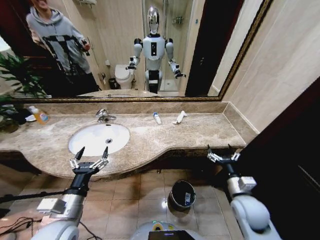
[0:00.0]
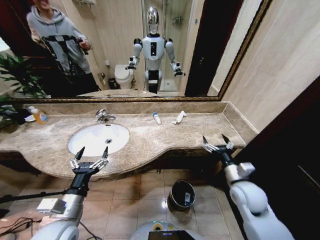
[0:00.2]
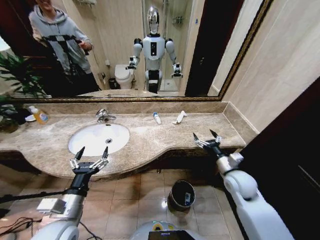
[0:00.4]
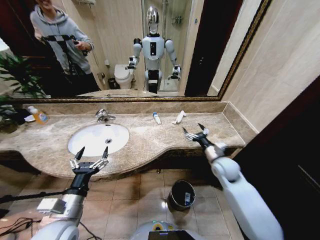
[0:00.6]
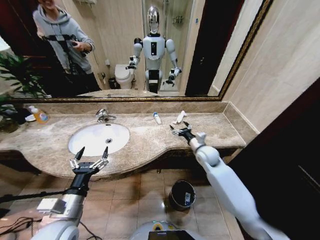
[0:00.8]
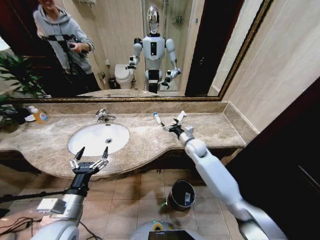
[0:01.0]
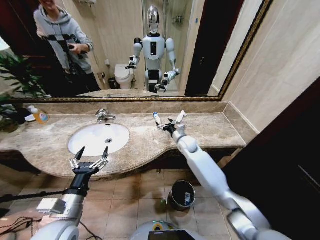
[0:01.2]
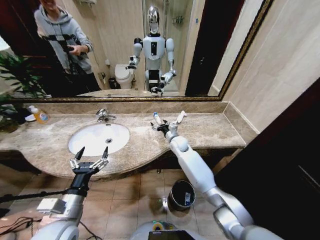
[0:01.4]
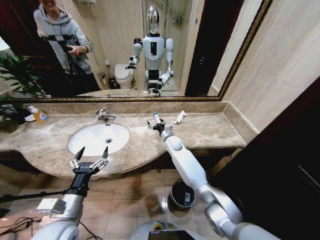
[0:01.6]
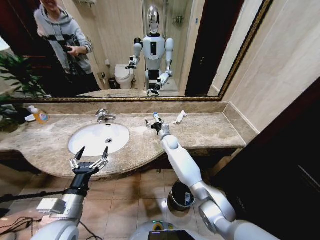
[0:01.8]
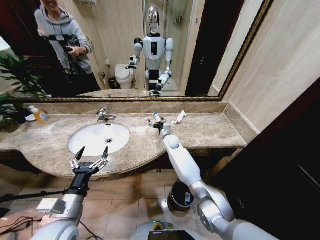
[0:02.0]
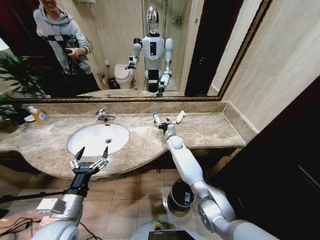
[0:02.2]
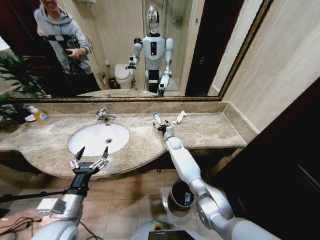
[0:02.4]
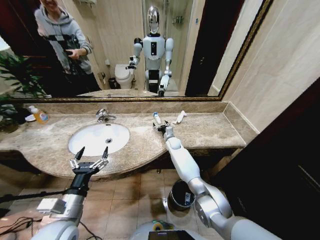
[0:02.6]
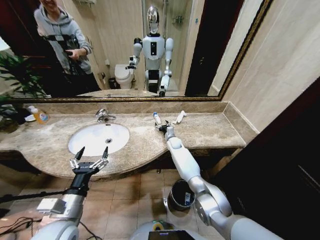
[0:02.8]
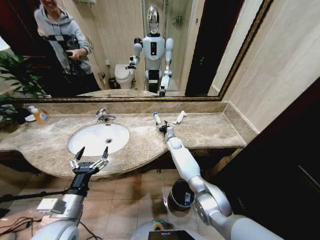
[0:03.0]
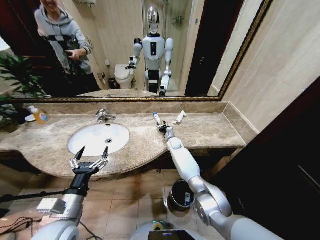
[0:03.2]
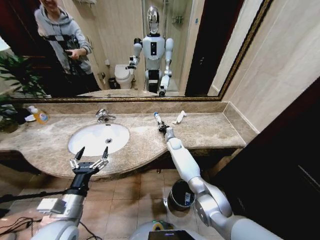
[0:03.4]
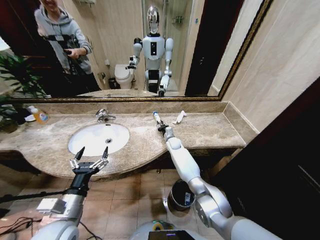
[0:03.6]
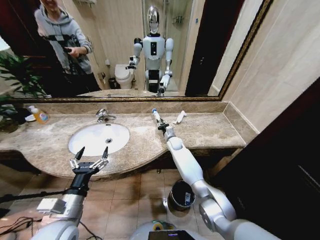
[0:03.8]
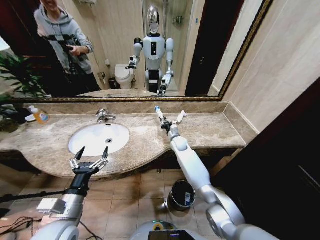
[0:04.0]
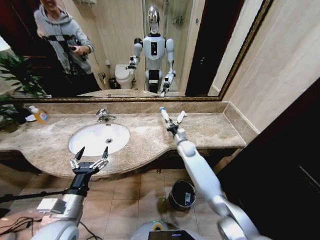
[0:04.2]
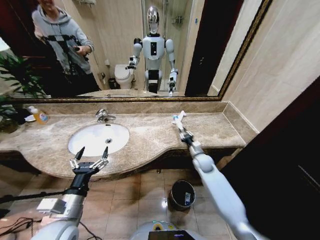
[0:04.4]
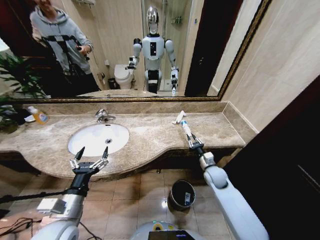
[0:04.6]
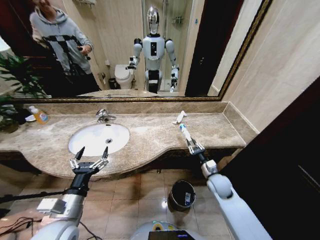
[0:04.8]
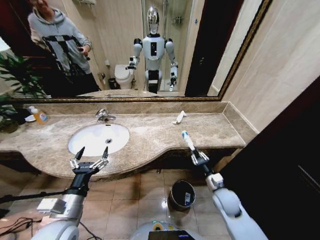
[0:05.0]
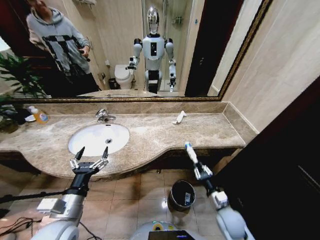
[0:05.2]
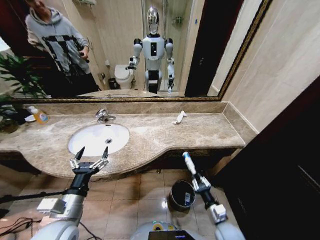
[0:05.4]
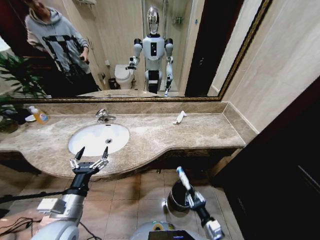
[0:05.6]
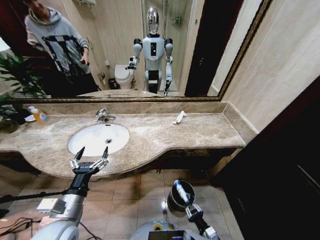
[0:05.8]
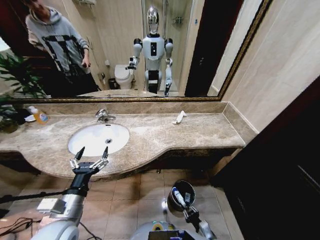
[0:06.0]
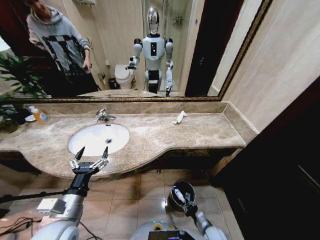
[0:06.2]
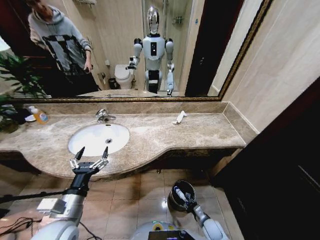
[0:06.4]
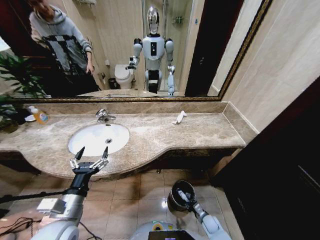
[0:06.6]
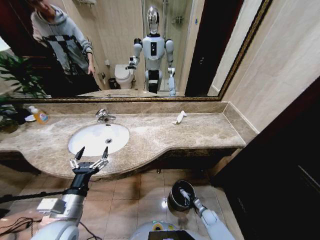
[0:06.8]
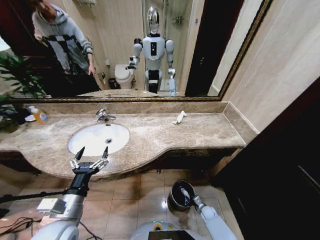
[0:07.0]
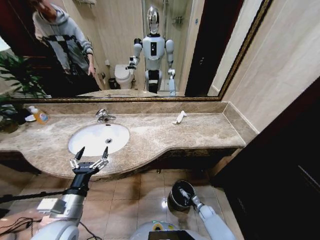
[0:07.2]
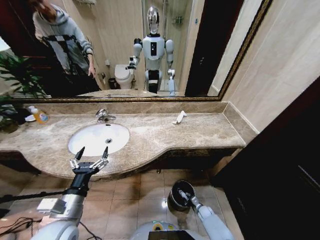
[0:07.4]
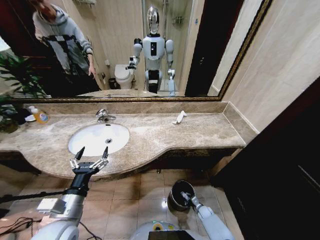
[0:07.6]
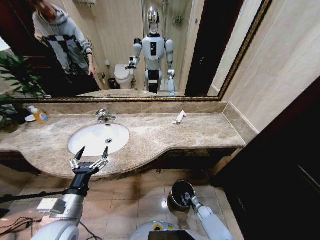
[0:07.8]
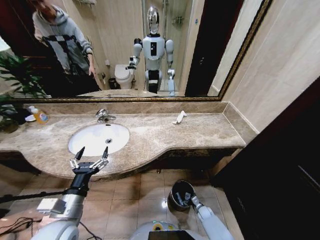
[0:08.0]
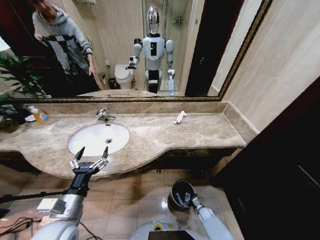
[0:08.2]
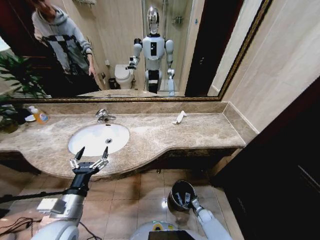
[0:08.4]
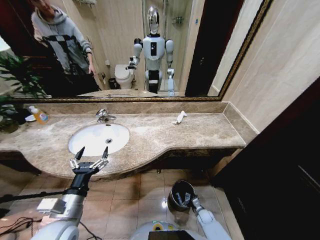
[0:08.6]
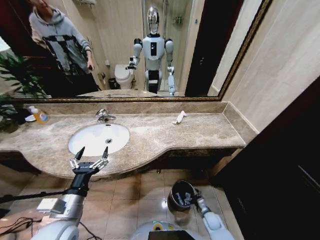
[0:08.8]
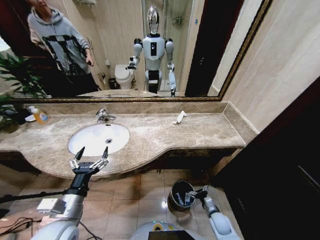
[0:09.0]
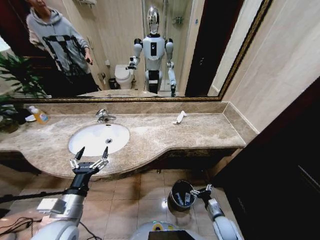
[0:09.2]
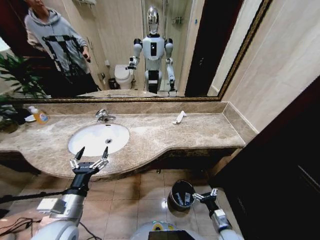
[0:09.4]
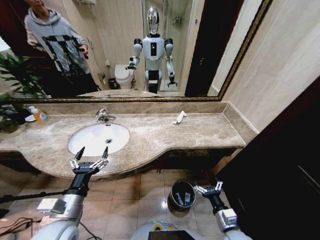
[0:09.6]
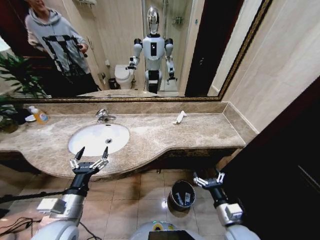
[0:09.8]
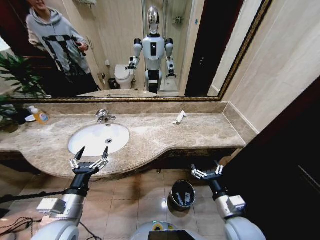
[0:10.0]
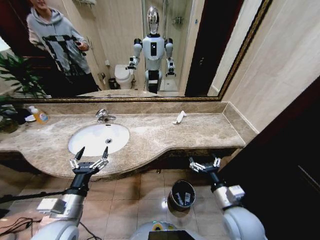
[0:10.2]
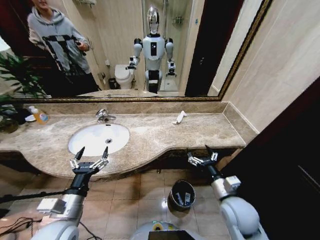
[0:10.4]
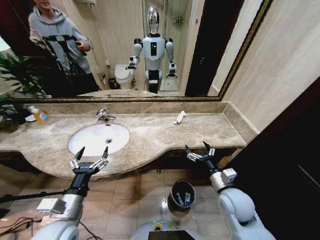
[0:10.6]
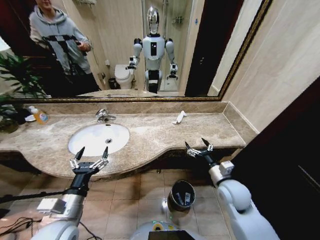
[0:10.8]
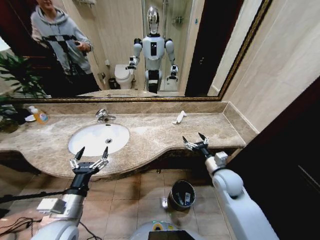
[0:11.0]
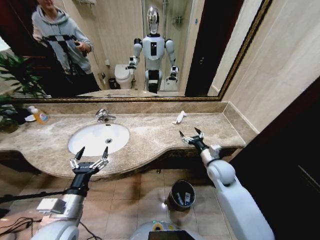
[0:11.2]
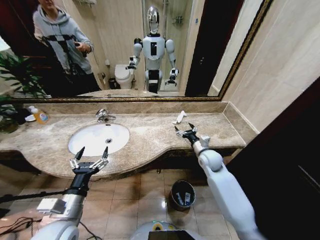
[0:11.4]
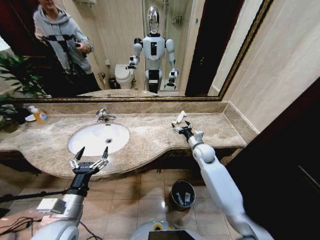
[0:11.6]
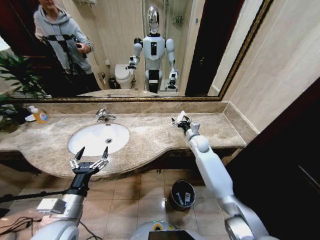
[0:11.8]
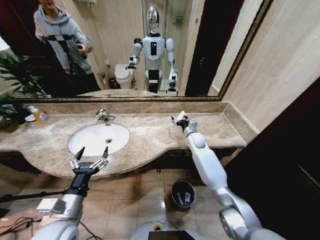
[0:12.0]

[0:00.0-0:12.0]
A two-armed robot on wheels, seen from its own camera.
Task of the whole recording: Pick up the trash from the sink and place it in the trash bin.
0:00.0 to 0:01.6: The right gripper heads forward and to the left, covering roughly 40 cm.
0:01.6 to 0:03.0: The right gripper shifts roughly 5 cm downward.
0:03.0 to 0:04.4: The right gripper shifts roughly 20 cm backward and to the right, and closes.
0:04.4 to 0:06.0: The right gripper shifts approximately 40 cm backward and downward.
0:06.0 to 0:07.6: The right gripper shifts roughly 20 cm forward and downward.
0:07.6 to 0:09.0: The right gripper heads upward and backward, covering roughly 15 cm, and opens.
0:09.0 to 0:10.4: The right gripper shifts some 30 cm upward.
0:10.4 to 0:12.0: The right gripper heads forward, covering about 35 cm.

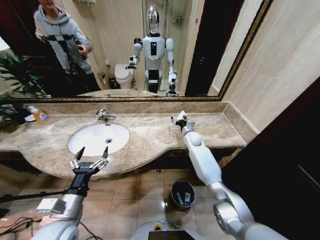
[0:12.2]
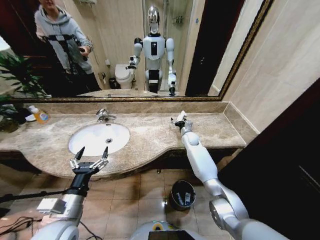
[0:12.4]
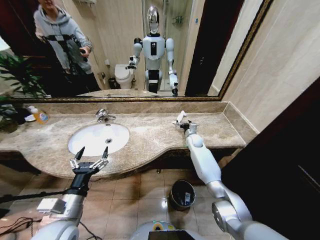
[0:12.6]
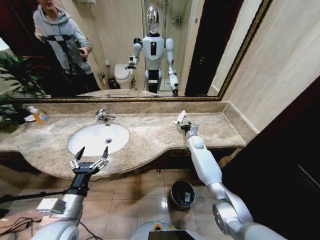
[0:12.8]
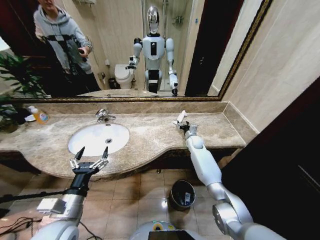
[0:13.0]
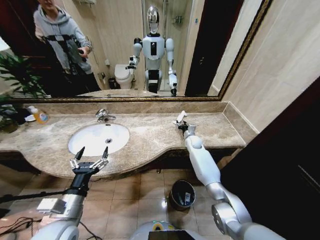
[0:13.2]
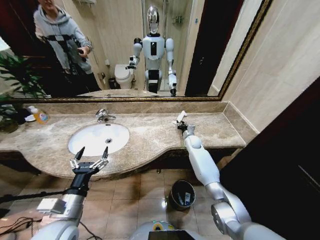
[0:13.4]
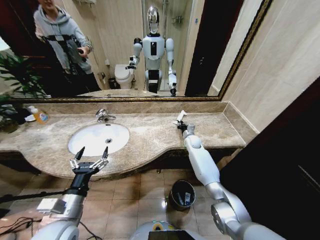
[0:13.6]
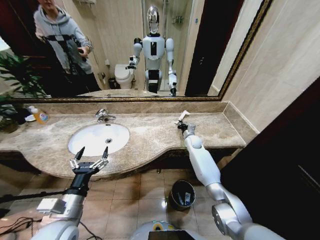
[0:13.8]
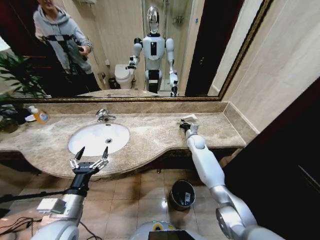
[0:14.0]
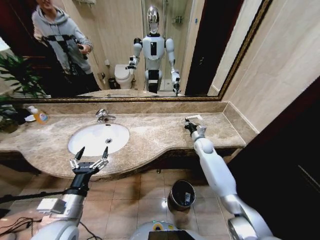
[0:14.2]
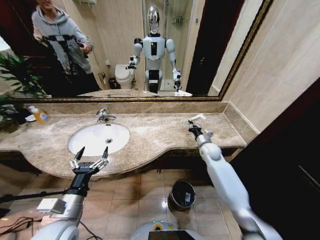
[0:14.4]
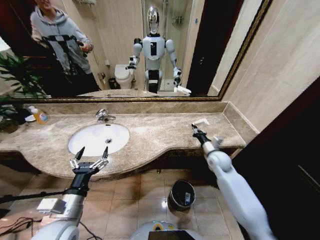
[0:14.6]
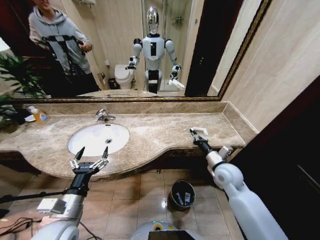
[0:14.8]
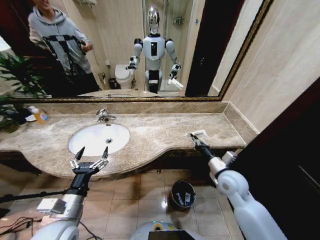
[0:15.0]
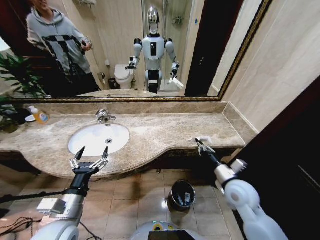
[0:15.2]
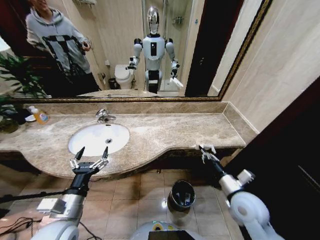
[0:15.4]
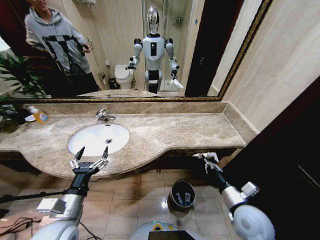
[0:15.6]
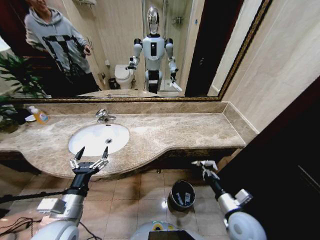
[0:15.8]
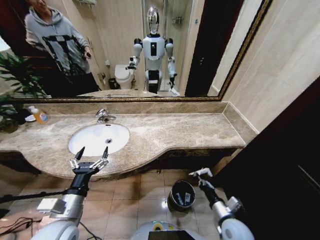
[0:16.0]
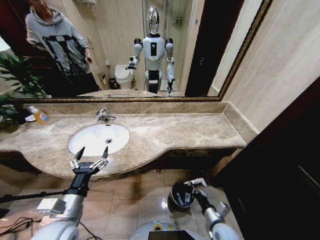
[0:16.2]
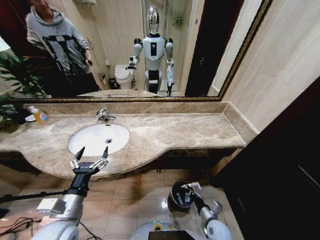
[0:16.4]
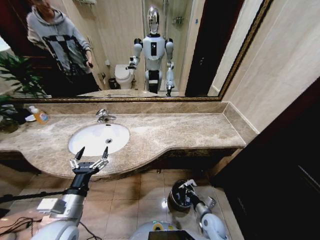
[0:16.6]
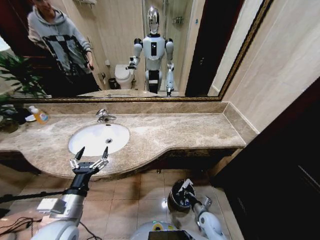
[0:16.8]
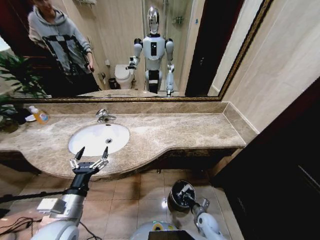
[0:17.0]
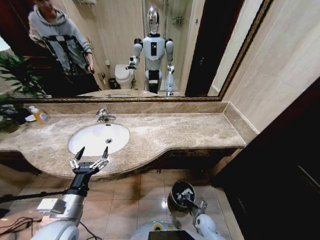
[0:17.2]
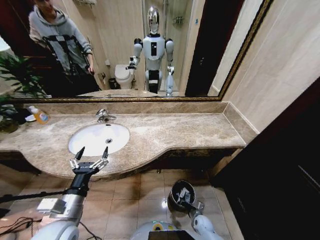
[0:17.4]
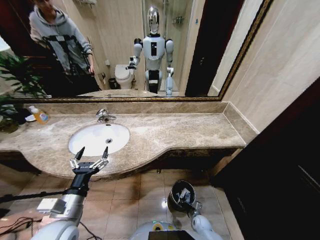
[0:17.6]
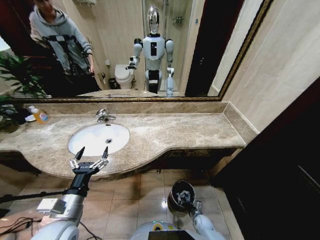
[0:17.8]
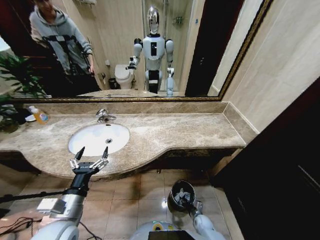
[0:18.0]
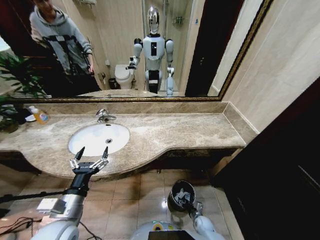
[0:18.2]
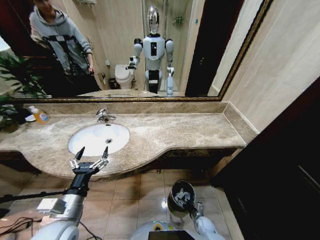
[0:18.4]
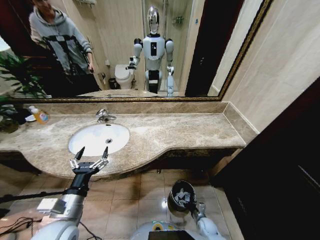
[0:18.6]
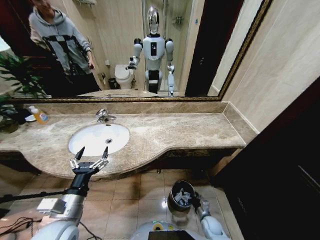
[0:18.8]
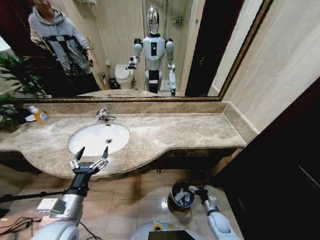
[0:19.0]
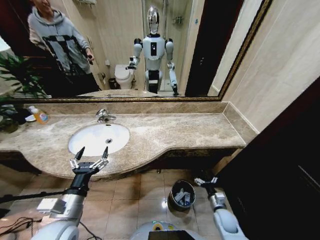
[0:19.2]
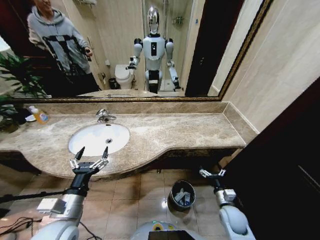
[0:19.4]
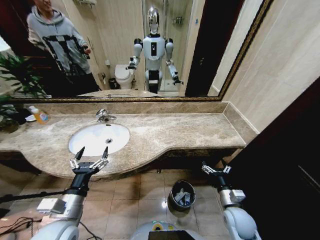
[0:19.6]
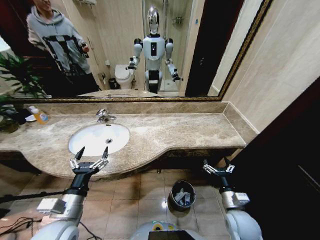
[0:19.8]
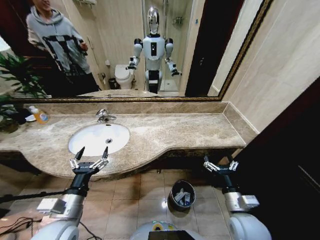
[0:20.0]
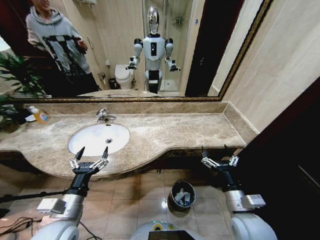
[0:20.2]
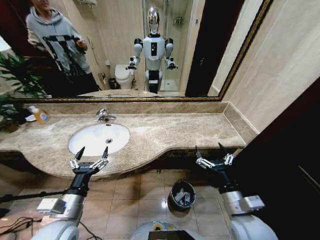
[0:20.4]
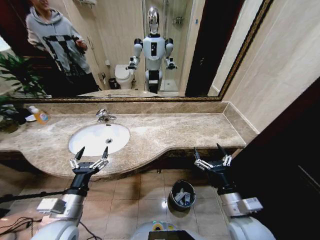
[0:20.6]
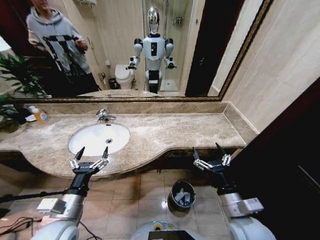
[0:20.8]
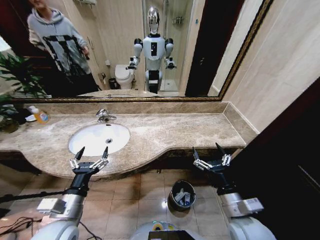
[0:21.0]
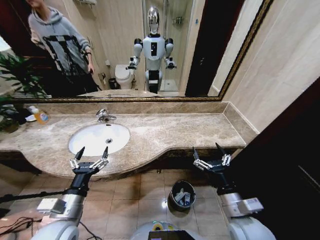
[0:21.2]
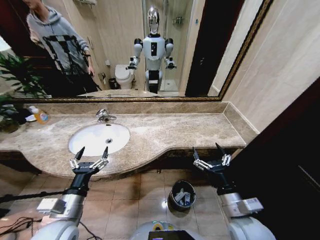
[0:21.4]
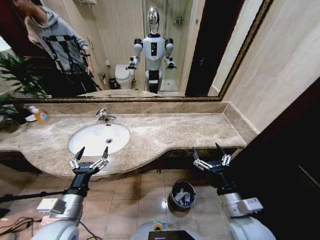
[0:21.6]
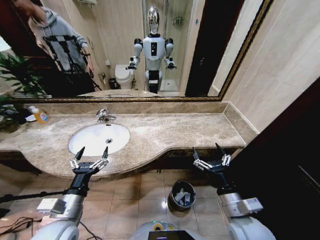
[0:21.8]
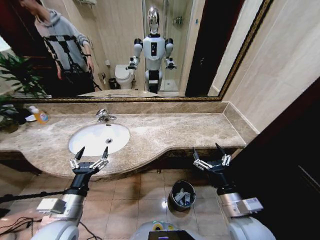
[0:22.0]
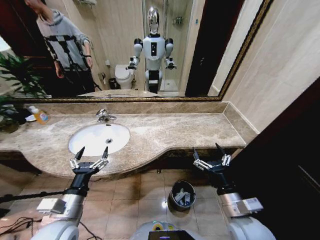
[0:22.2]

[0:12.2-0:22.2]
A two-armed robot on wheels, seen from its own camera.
Task of the whole recording: Pick up the trash from the sink and place it in the trash bin.
0:12.2 to 0:13.6: The right gripper closes.
0:13.6 to 0:15.0: The right gripper travels backward by roughly 25 cm.
0:15.0 to 0:16.4: The right gripper moves downward and backward, roughly 25 cm.
0:16.4 to 0:18.0: The right gripper heads downward, covering roughly 20 cm.
0:18.0 to 0:19.4: The right gripper is displaced upward by about 20 cm, and opens up.
0:19.4 to 0:20.8: The right gripper travels upward and to the left by about 20 cm.
0:20.8 to 0:22.2: Both grippers stay about where they are.
